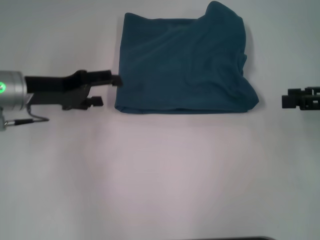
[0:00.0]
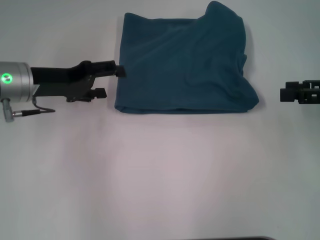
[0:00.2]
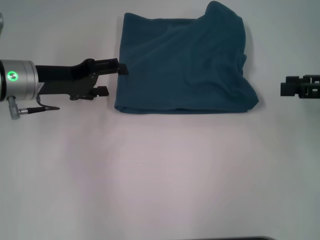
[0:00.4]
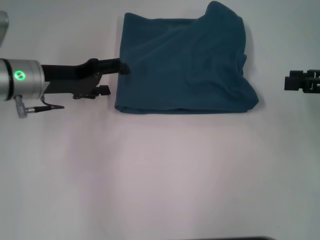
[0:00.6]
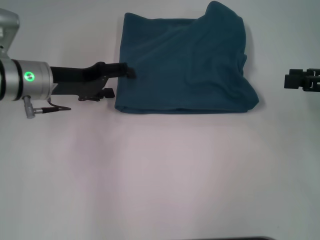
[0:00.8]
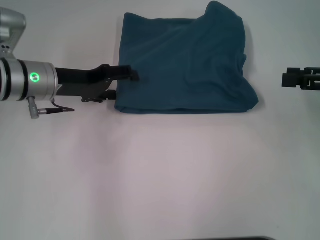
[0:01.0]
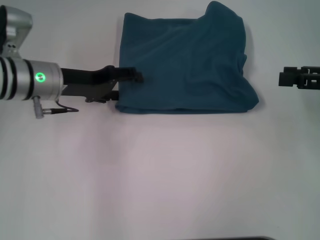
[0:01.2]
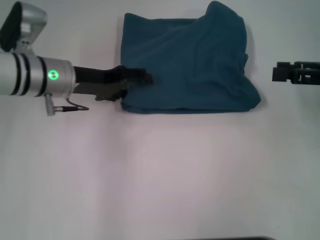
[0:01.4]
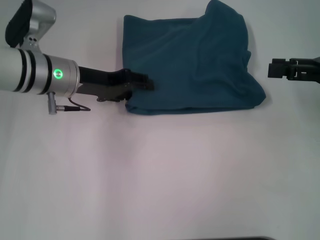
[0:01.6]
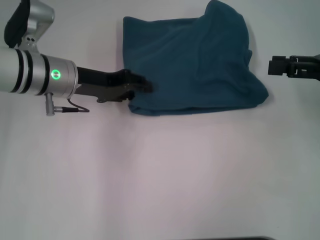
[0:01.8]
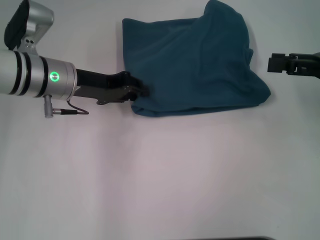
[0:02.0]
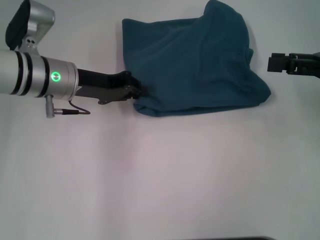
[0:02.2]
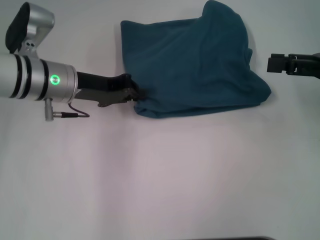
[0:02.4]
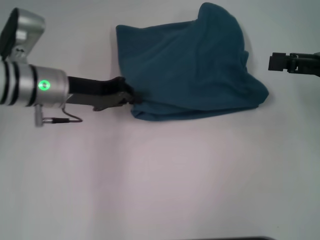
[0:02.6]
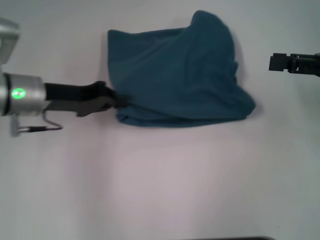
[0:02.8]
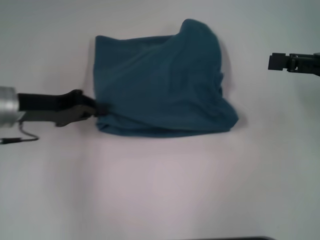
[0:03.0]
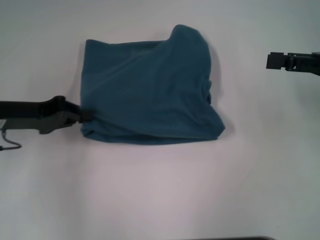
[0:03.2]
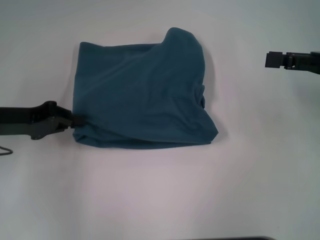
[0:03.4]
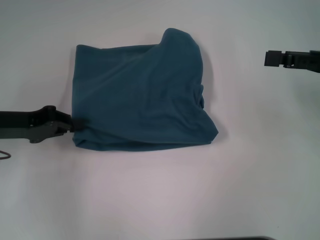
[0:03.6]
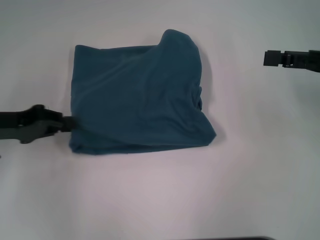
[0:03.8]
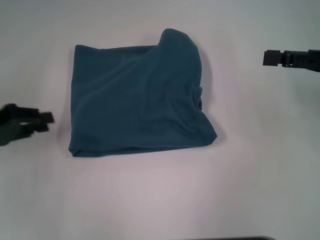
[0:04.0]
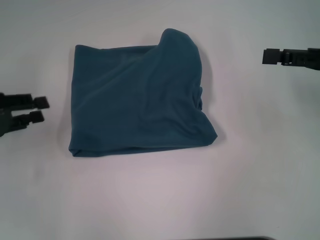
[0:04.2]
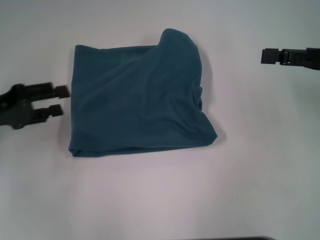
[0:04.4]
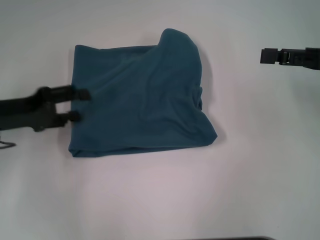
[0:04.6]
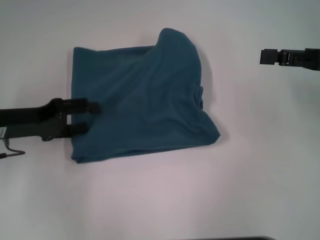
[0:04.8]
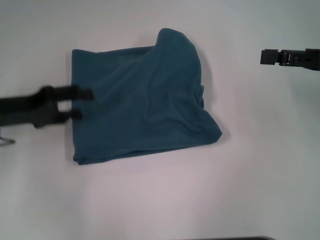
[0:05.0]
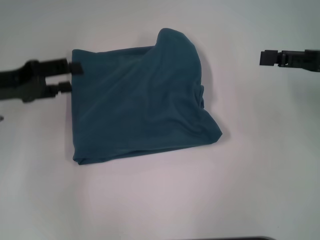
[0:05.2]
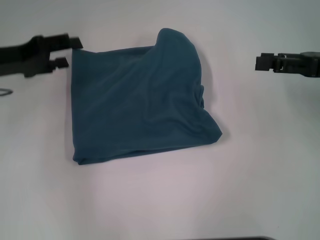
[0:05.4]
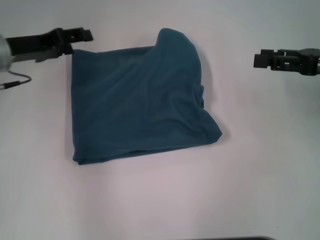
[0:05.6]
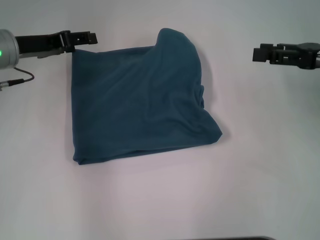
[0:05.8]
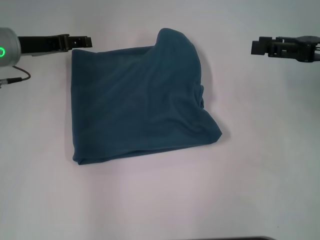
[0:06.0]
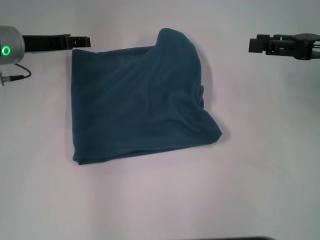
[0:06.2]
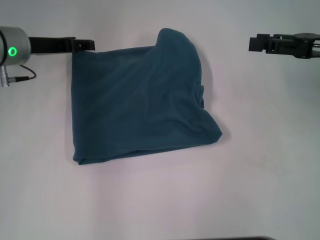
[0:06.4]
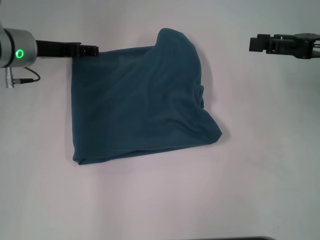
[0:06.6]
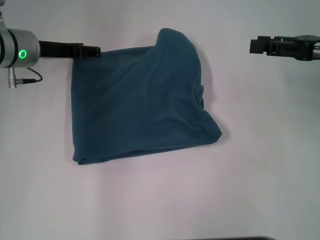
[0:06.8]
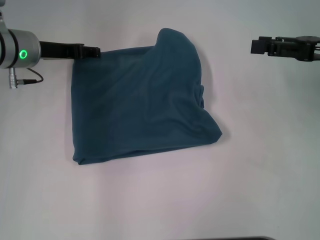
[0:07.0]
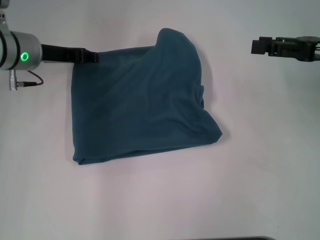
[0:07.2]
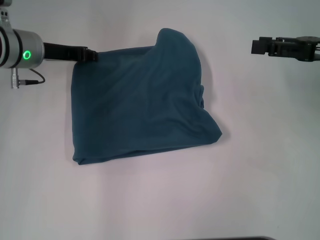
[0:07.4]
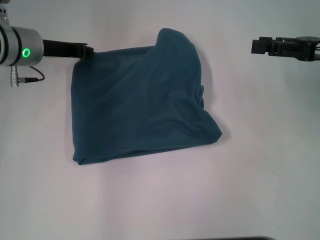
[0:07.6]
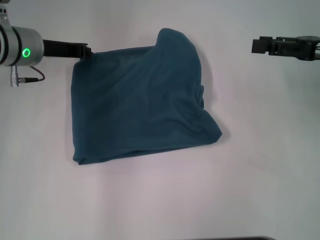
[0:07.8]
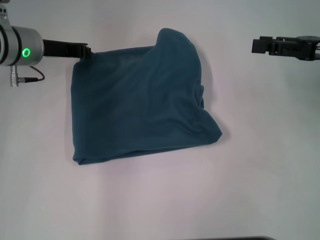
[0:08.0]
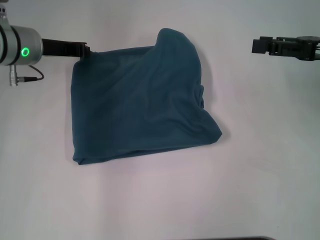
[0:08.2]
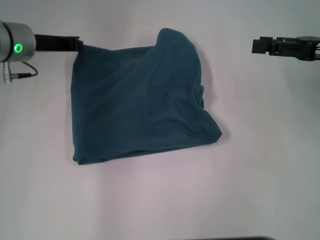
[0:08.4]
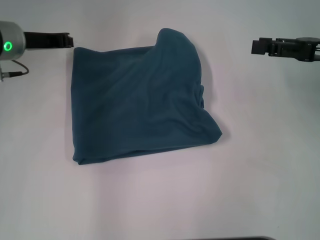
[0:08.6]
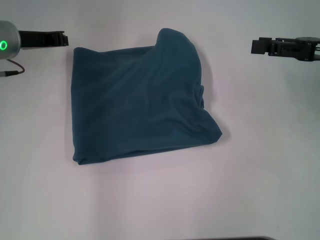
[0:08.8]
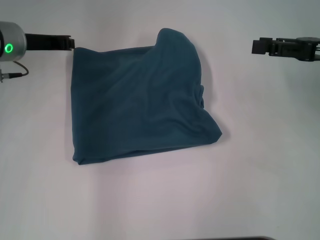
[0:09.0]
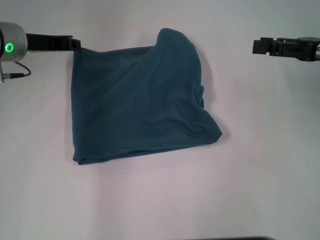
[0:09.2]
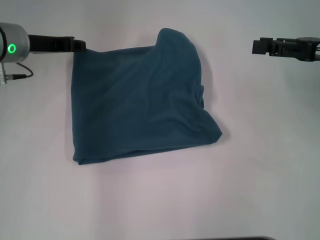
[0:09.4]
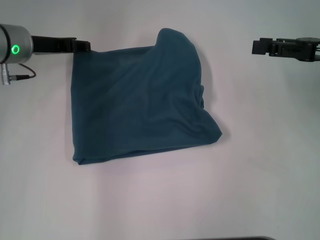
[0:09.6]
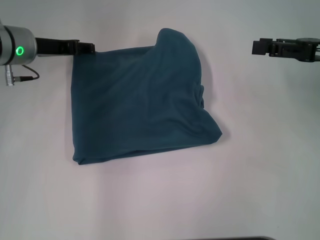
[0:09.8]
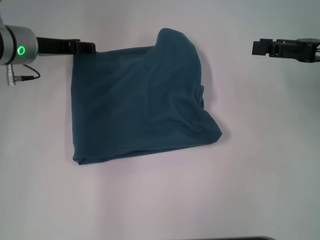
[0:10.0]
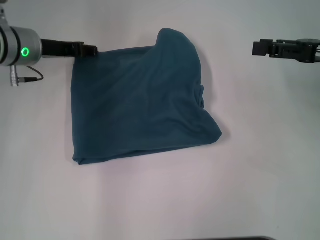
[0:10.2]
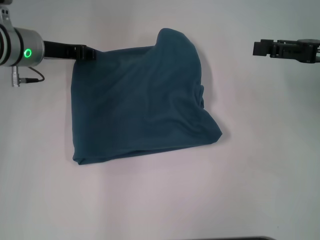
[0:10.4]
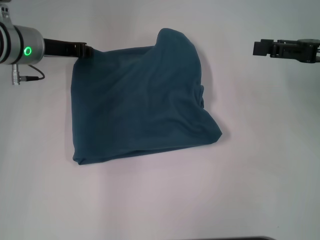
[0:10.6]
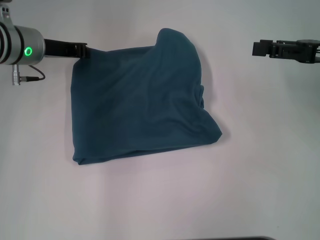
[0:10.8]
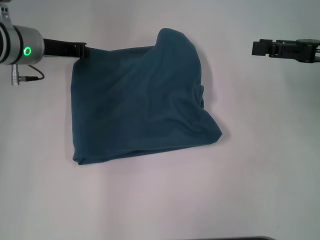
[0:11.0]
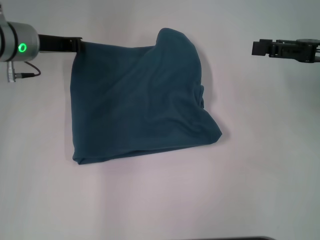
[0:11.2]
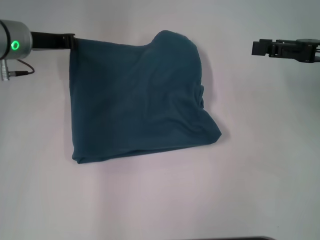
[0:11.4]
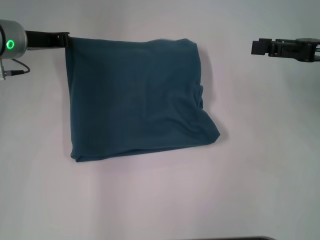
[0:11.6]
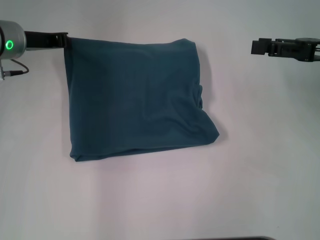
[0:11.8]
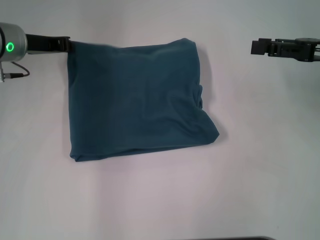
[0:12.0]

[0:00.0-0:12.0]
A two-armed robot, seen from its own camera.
0:00.0 to 0:01.6: The left gripper moves to the right, approximately 5 cm.
0:01.6 to 0:03.0: The left gripper travels to the left and backward by some 10 cm, and closes.
0:03.0 to 0:04.4: The left gripper is displaced to the left by roughly 5 cm, and opens its fingers.
0:04.4 to 0:06.0: The left gripper is displaced forward and to the right by roughly 15 cm.
0:06.0 to 0:07.6: The left gripper closes up.
0:07.6 to 0:09.0: The left gripper closes.
0:09.0 to 0:10.4: The left gripper opens its fingers.
0:10.4 to 0:12.0: The left gripper closes its fingers.

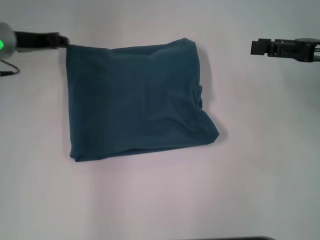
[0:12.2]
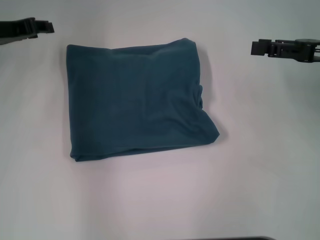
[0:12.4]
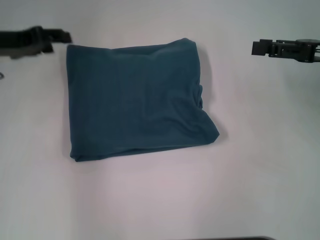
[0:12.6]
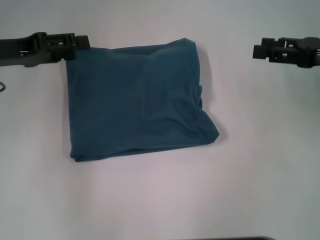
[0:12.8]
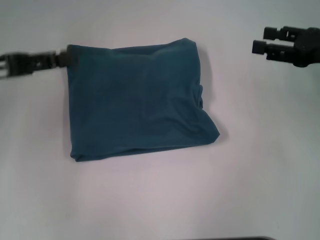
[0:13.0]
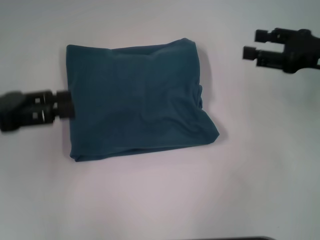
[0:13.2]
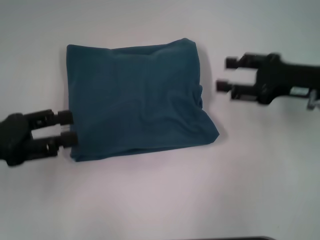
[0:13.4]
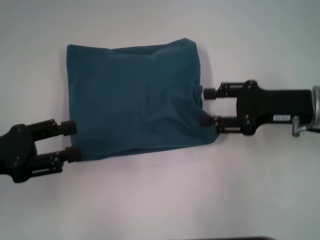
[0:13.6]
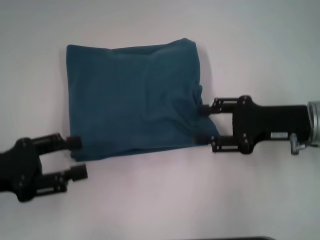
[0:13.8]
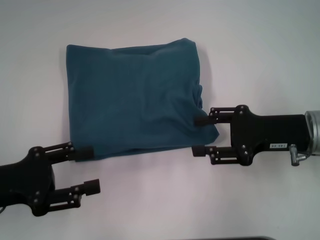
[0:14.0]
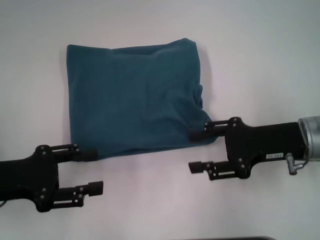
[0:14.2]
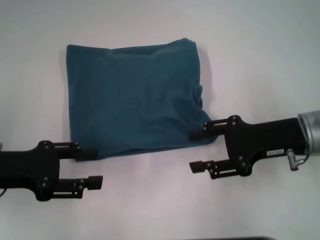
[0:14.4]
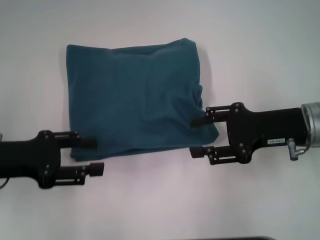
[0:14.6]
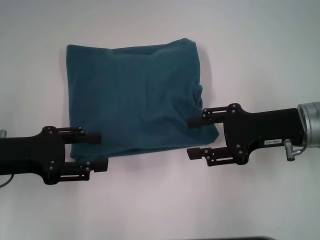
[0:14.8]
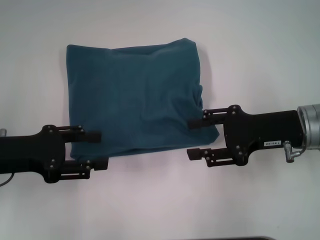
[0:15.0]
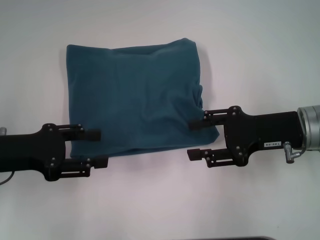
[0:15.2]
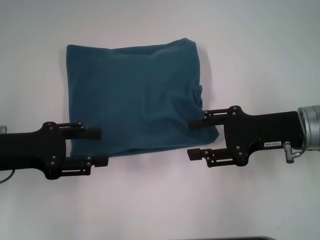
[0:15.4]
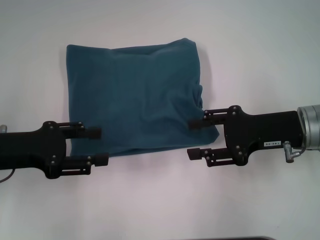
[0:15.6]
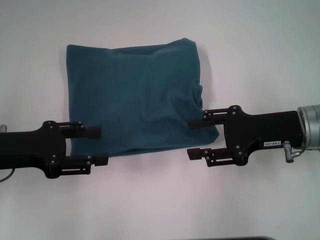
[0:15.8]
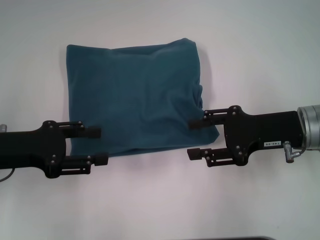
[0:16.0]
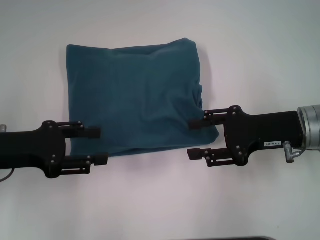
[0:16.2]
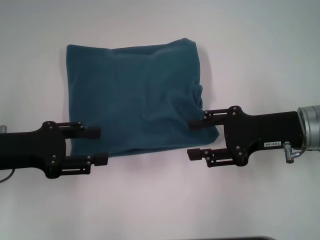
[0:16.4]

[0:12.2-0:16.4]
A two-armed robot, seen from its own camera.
0:12.2 to 0:13.6: The left gripper shifts approximately 20 cm backward, and opens. Meanwhile the right gripper travels to the left and downward by approximately 10 cm.
0:13.6 to 0:15.0: The grippers move only a little.
0:15.0 to 0:16.4: Both grippers stay about where they are.

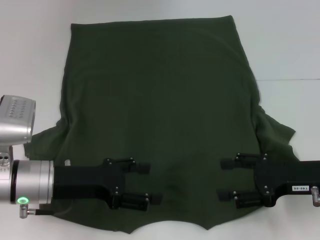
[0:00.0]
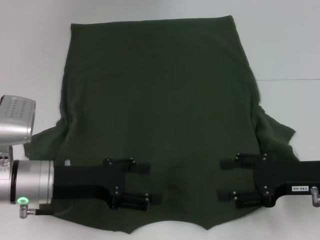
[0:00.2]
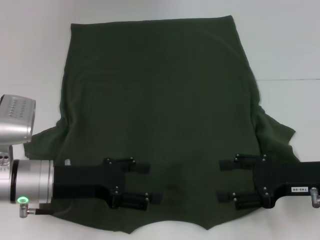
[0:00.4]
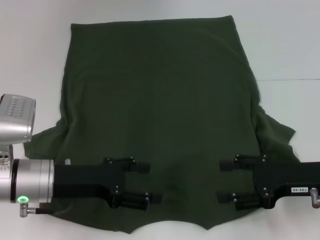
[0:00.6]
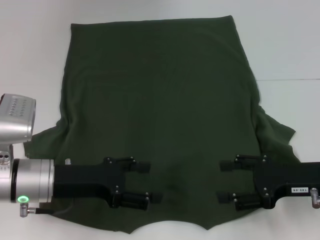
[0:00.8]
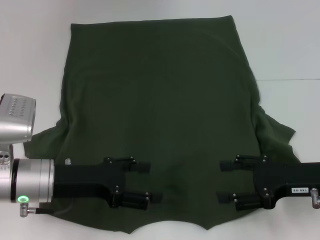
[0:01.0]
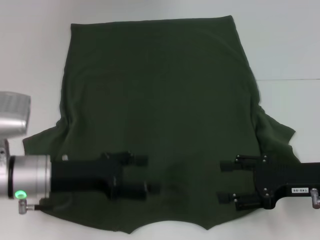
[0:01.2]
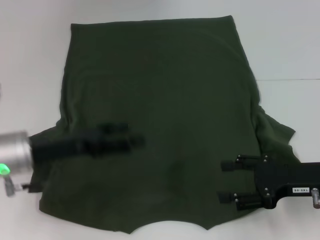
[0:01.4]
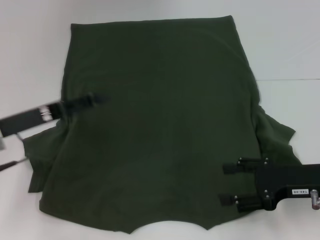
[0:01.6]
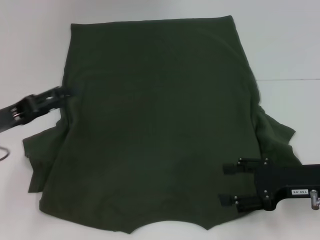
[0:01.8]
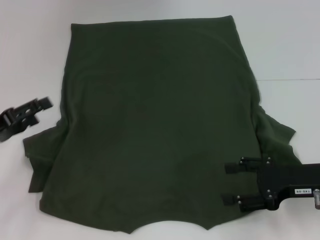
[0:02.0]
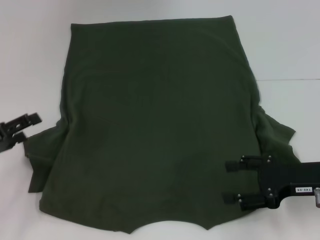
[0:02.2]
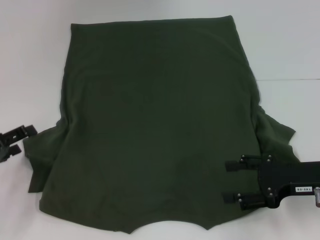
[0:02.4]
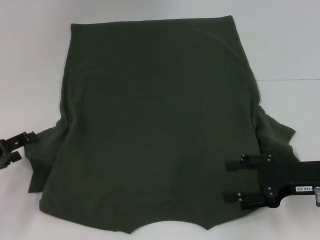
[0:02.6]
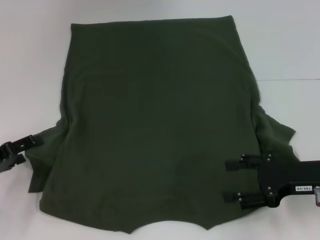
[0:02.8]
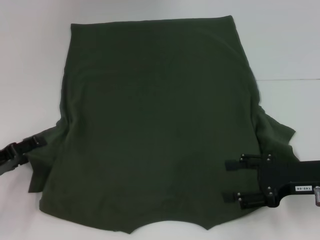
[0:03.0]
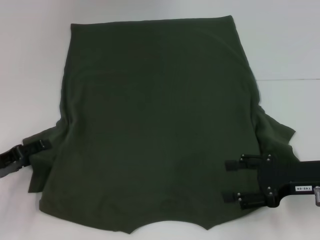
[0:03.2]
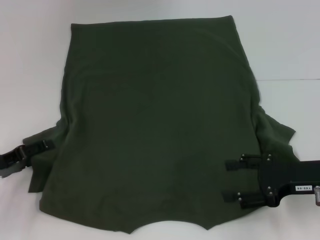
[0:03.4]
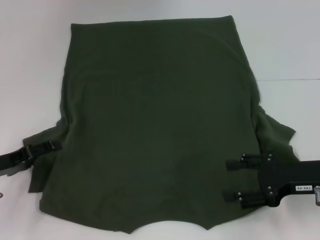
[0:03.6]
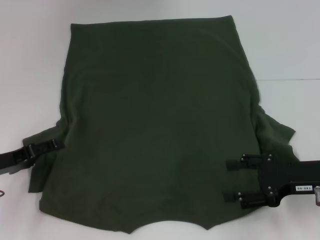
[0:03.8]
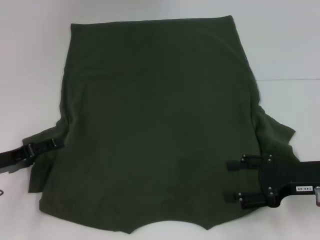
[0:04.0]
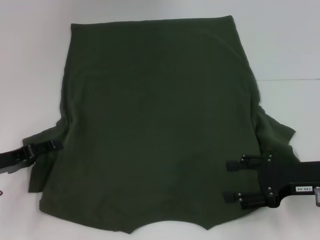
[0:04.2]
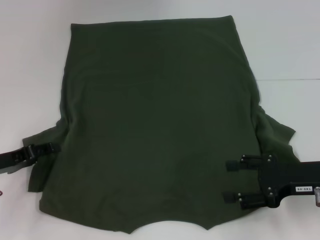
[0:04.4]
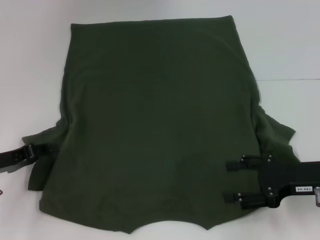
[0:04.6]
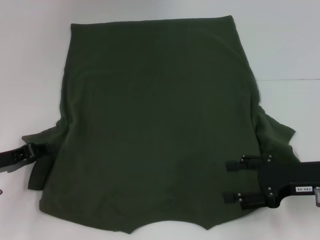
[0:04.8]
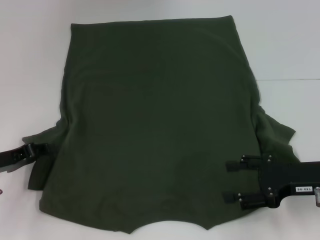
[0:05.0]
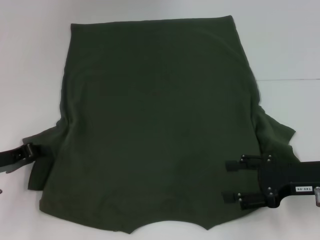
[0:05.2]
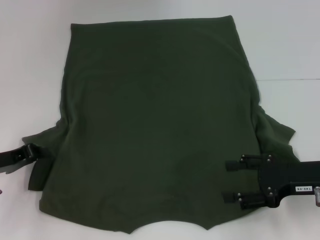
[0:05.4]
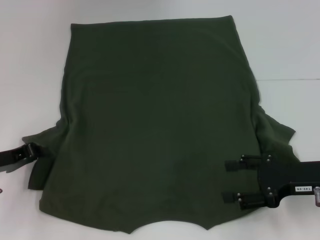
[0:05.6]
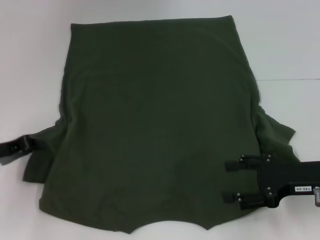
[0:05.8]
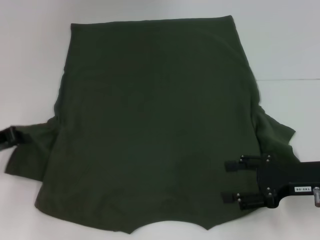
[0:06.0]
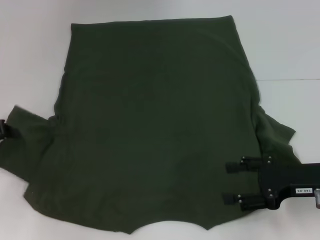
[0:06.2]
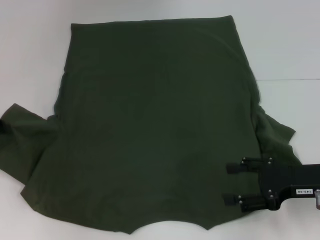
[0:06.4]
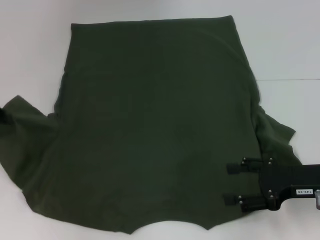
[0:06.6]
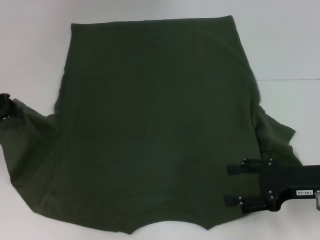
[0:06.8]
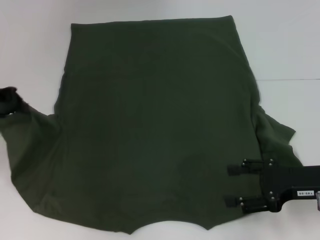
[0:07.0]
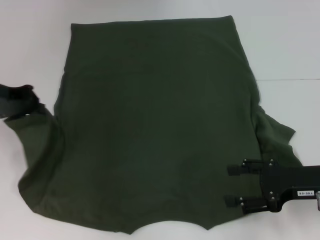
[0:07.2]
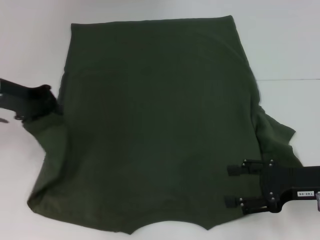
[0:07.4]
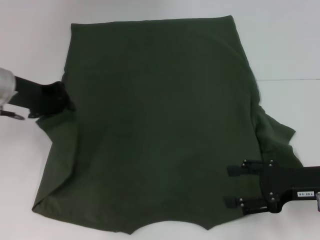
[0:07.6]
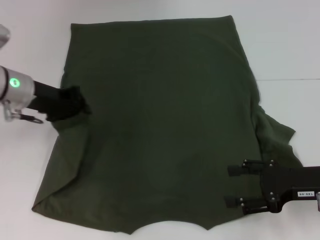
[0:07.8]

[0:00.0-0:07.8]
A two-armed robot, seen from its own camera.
0:00.0 to 0:01.6: The left gripper goes approximately 5 cm to the left.
0:01.6 to 0:03.2: The left gripper travels downward and to the left by roughly 10 cm.
0:03.2 to 0:04.6: The grippers make only small movements.
0:04.6 to 0:06.2: The left gripper travels upward by roughly 5 cm, and closes its fingers.
0:06.2 to 0:07.8: The left gripper is displaced to the right and forward by approximately 15 cm.
